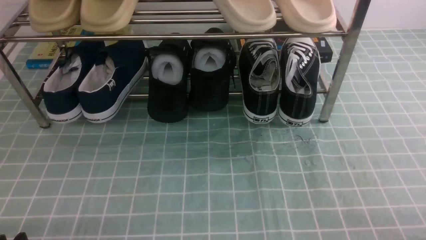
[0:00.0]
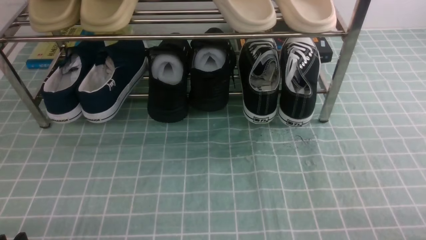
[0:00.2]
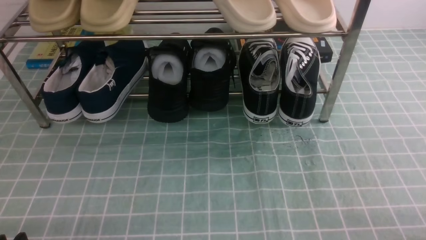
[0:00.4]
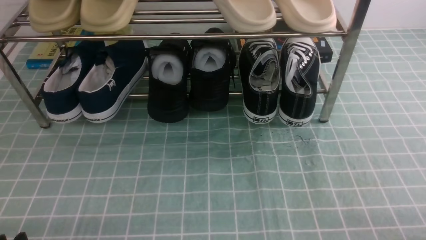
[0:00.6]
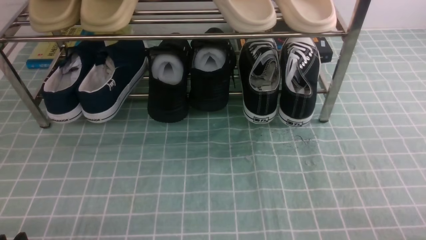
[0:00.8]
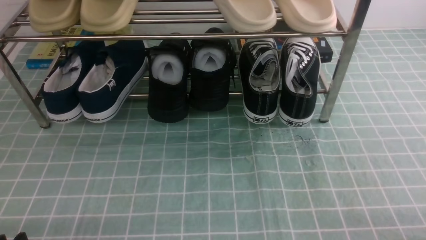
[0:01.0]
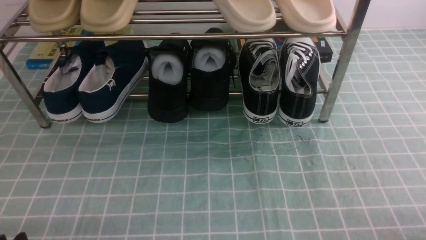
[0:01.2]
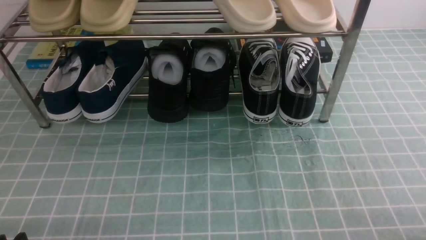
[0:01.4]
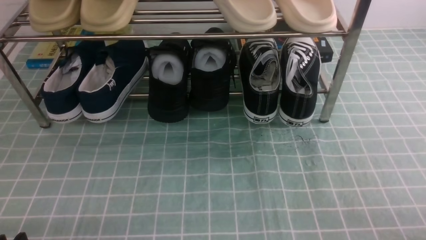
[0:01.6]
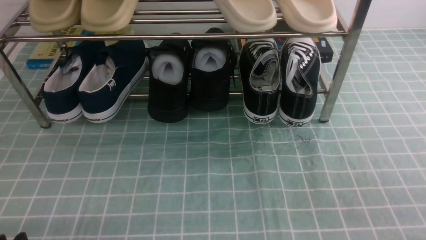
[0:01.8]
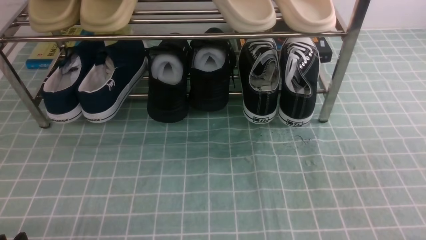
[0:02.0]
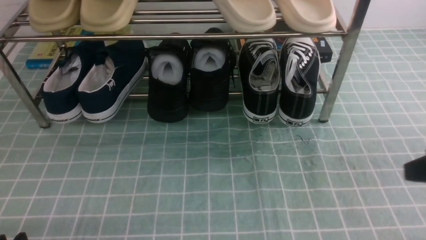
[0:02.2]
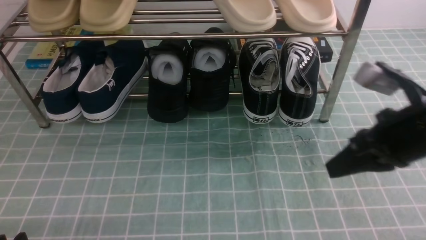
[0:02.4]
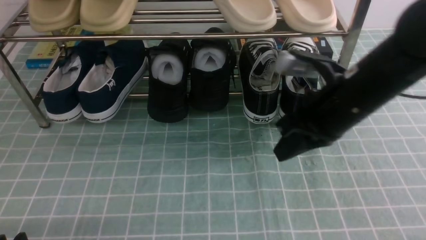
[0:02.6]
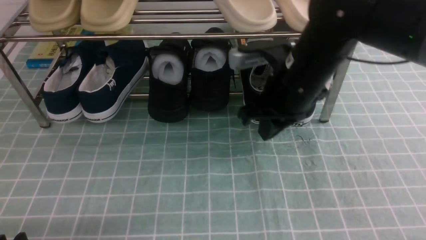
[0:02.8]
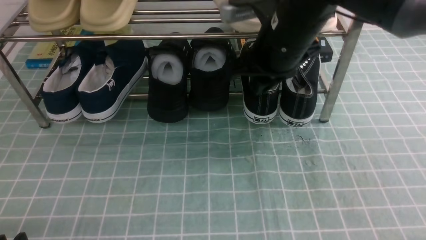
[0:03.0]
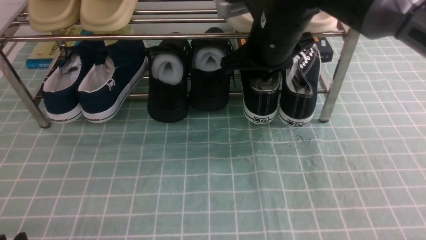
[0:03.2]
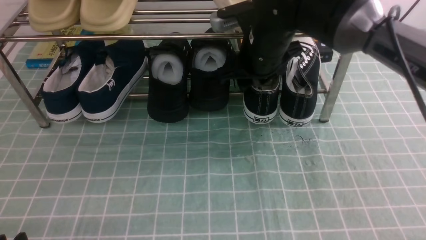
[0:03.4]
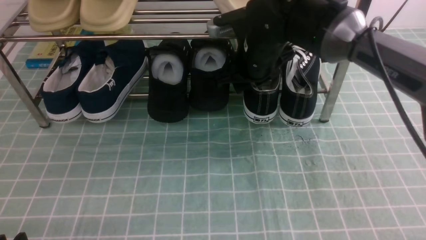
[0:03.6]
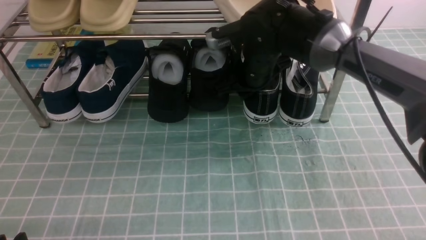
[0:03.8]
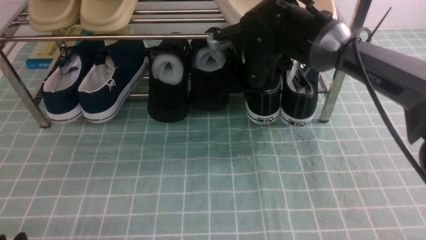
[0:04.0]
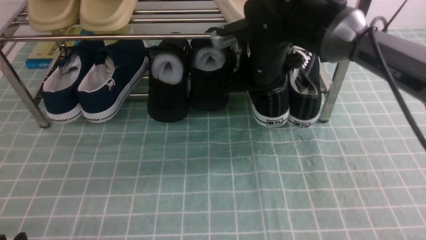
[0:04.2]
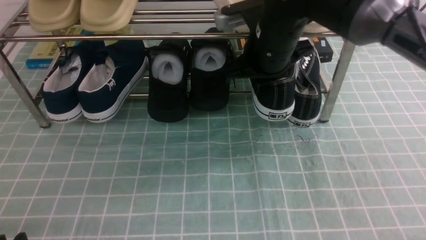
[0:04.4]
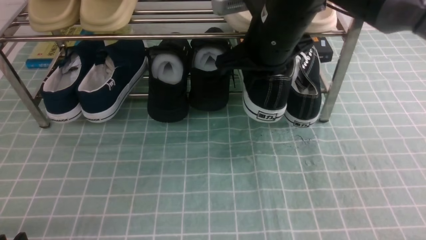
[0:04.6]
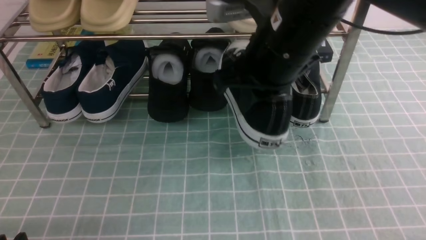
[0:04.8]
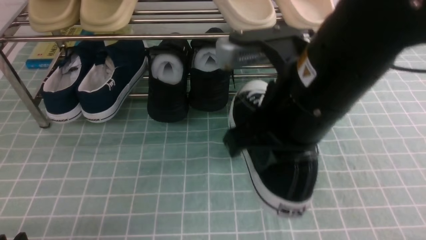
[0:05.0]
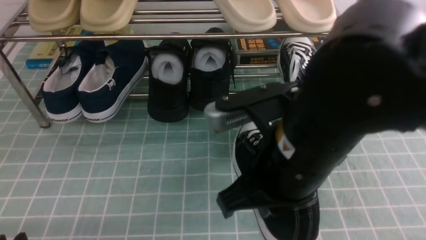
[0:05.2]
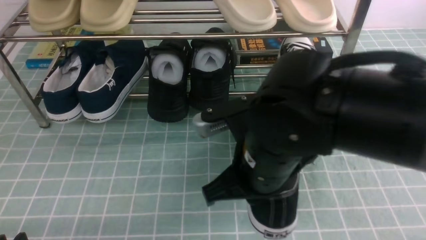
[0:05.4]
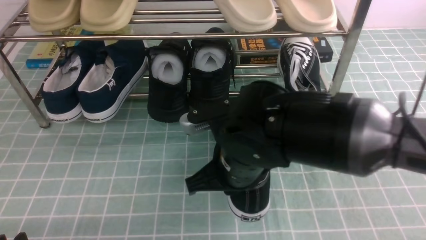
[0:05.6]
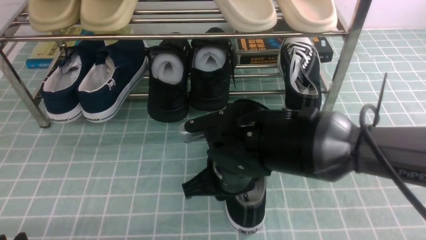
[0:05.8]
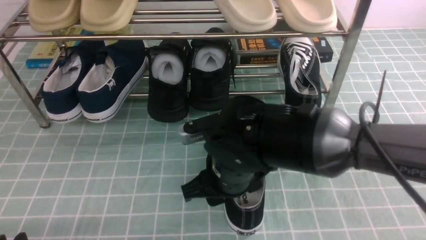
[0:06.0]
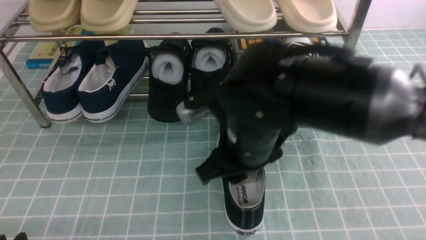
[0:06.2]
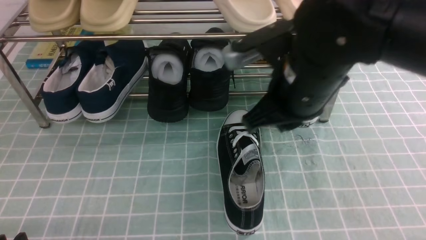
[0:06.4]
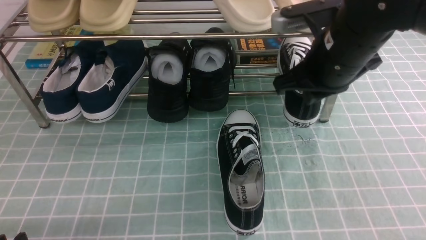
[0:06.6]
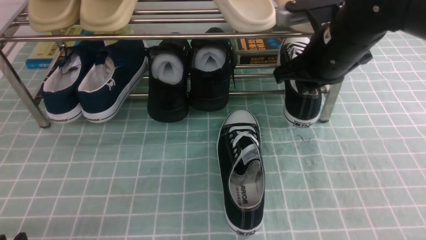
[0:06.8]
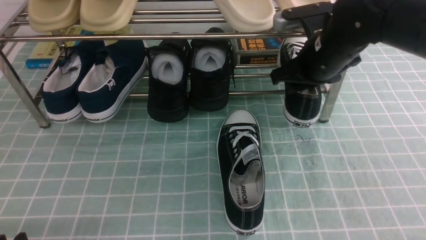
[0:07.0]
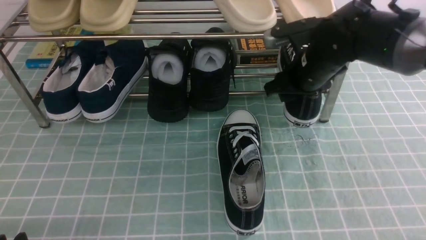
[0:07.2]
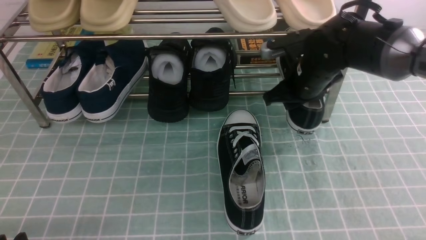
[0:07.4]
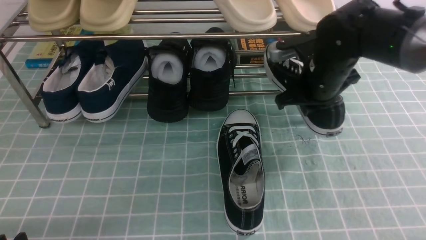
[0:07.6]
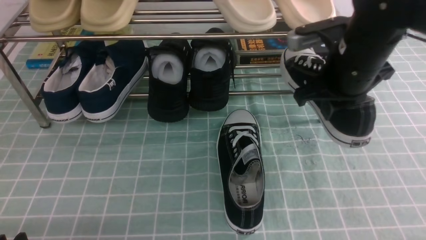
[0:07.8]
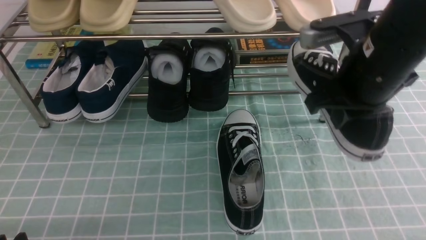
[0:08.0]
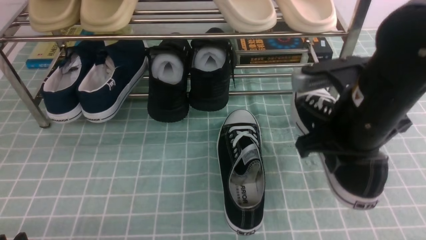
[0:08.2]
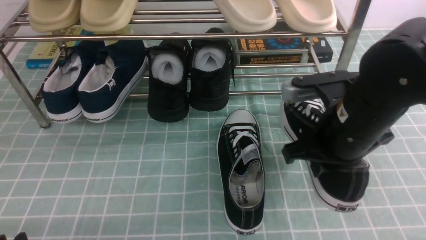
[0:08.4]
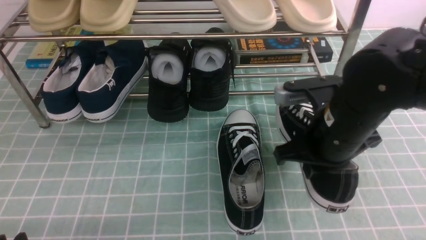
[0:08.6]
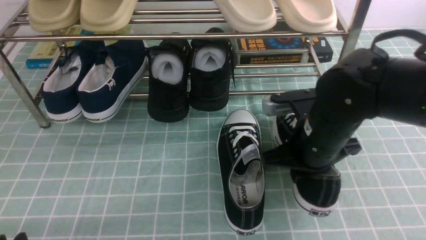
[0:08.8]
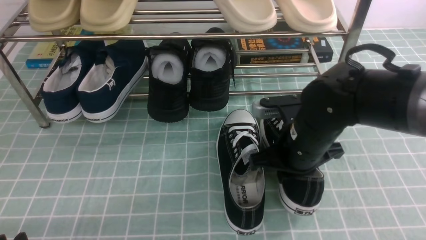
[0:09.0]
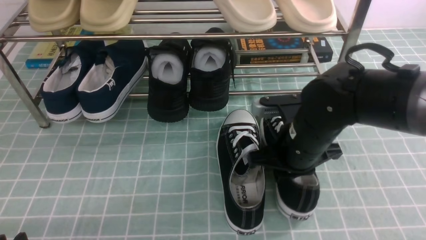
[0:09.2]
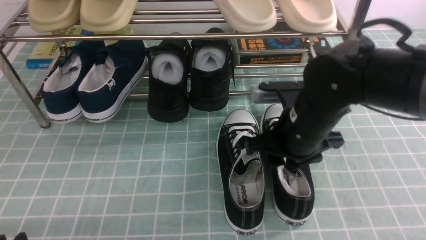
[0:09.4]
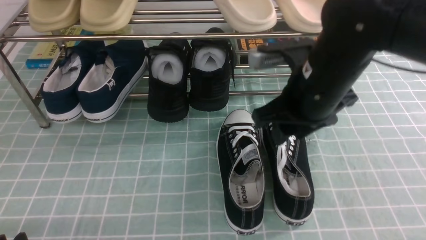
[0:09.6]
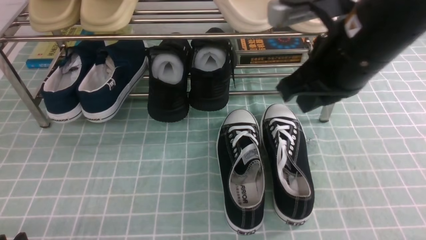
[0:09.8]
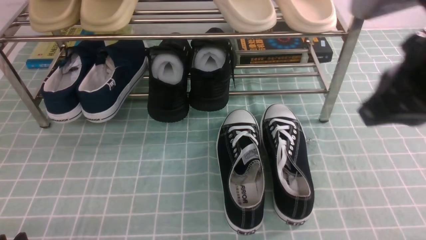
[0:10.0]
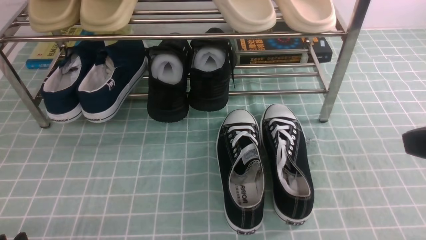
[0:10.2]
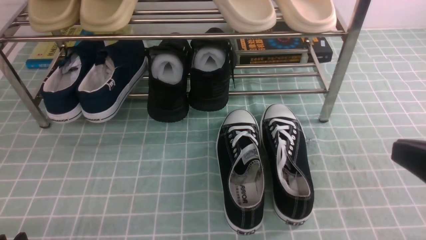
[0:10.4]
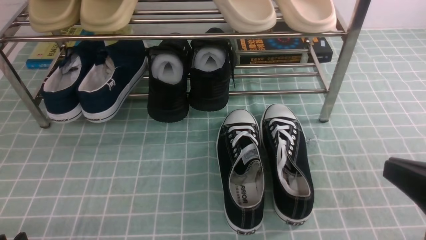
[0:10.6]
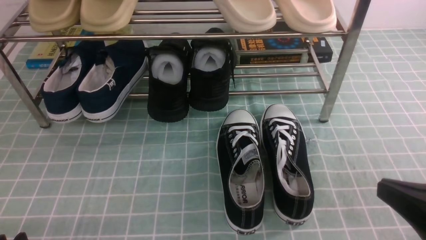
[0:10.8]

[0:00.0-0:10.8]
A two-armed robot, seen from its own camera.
Step, 0:00.0 to 0:03.8: use the right arm to clamp a shoe on the right side of the shoe rack.
Step, 0:04.0 to 0:06.2: use the right arm to take out the clamped shoe from the shoe rack and put it down.
Step, 0:06.4 to 0:07.2: use the right arm to clamp a shoe on the right side of the shoe rack.
Step, 0:07.4 to 0:09.4: use the right arm to take out the clamped shoe from the shoe rack and put it down.
0:01.6 to 0:03.0: The right gripper moves forward, to the left and upward, some 40 cm.
0:03.0 to 0:04.6: The right gripper goes downward and returns, roughly 5 cm each way, and opens and closes again.
0:04.6 to 0:06.2: The right gripper moves backward and downward, approximately 15 cm, and opens up.
0:06.2 to 0:07.8: The right gripper moves to the right and forward, about 15 cm, and closes its fingers.
0:07.8 to 0:09.2: The right gripper shifts roughly 10 cm downward and backward.
0:09.2 to 0:10.8: The right gripper shifts approximately 25 cm backward and to the right, and opens, then closes again.

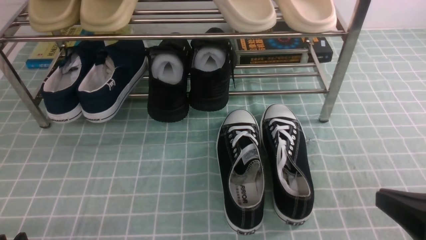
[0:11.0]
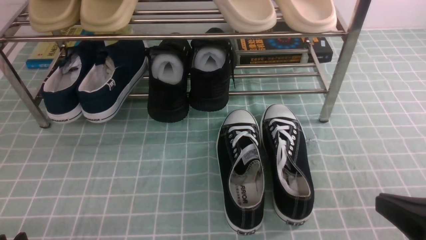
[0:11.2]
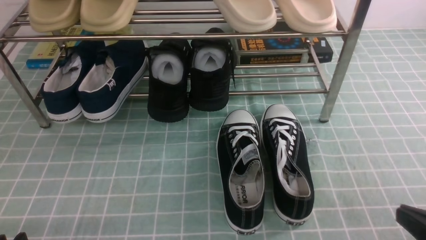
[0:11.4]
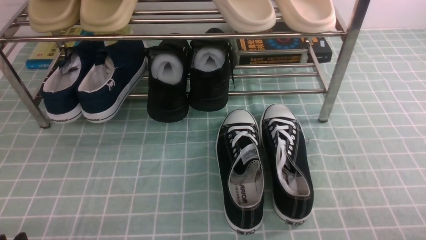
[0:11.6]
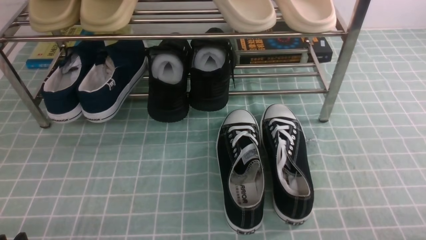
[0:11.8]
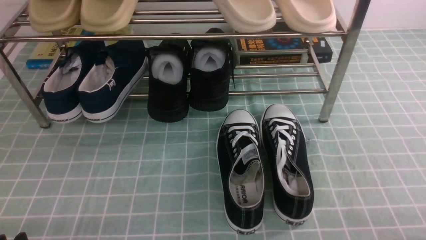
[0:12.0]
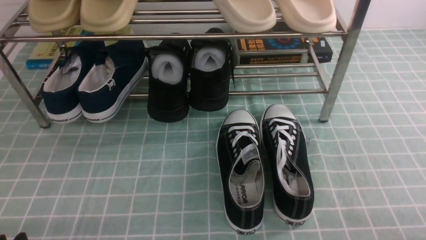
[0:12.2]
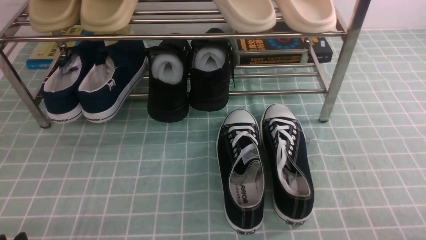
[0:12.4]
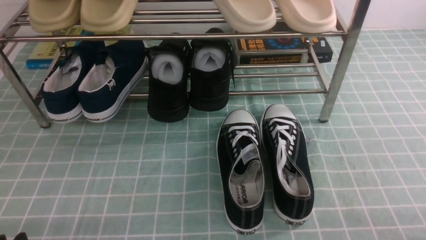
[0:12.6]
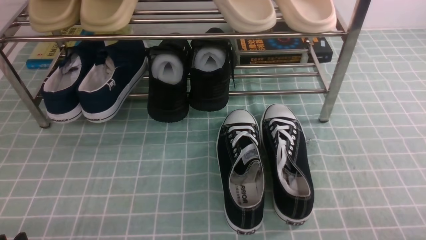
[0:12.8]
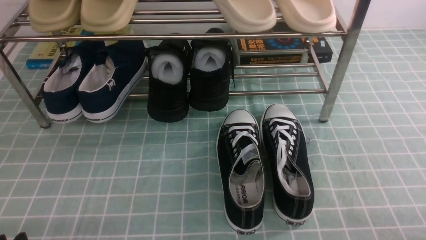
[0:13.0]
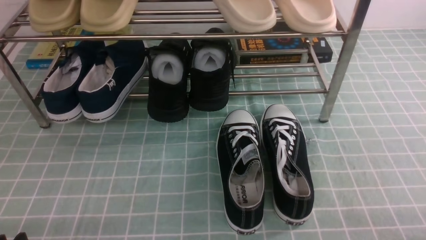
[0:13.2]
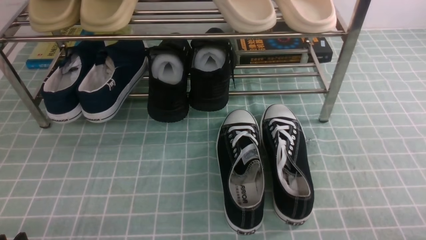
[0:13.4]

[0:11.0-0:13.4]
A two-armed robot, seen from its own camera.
0:11.0 to 0:12.2: The right gripper travels downward and to the right by approximately 10 cm.
0:12.2 to 0:13.4: Both grippers stay about where they are.

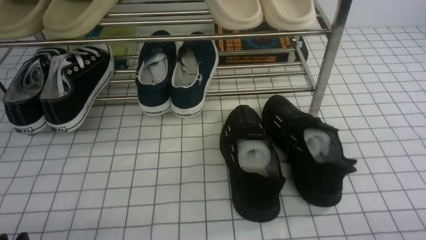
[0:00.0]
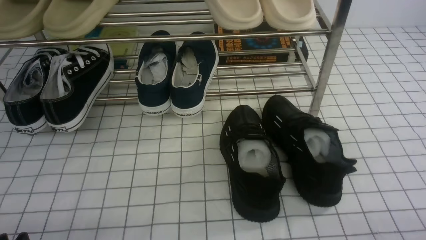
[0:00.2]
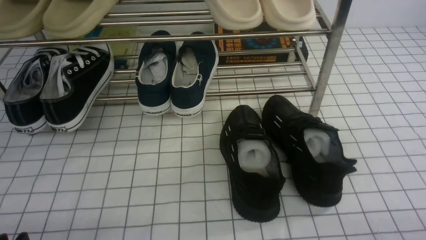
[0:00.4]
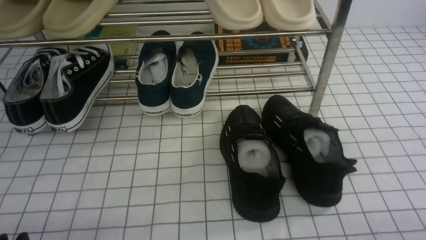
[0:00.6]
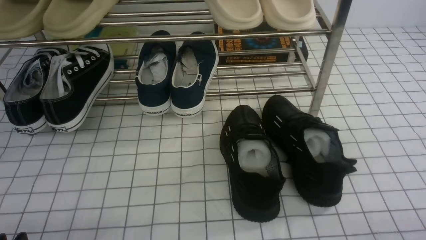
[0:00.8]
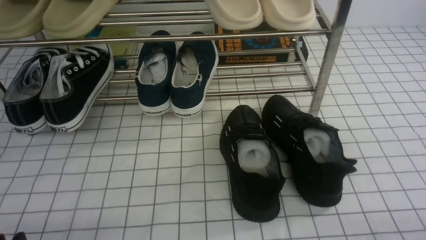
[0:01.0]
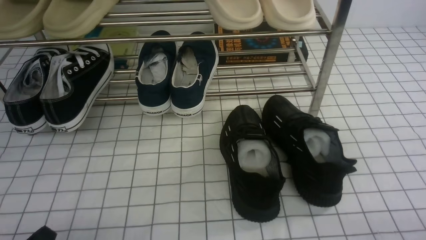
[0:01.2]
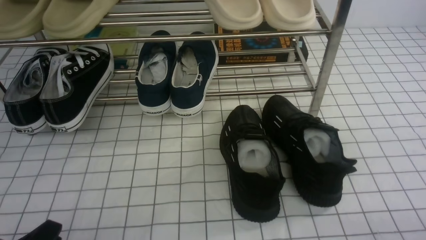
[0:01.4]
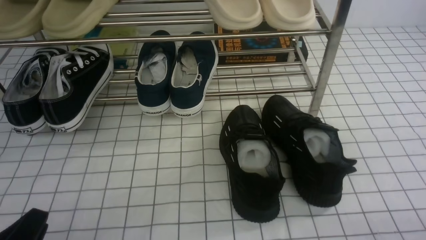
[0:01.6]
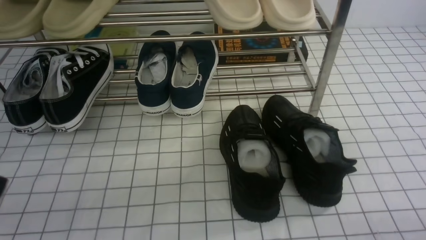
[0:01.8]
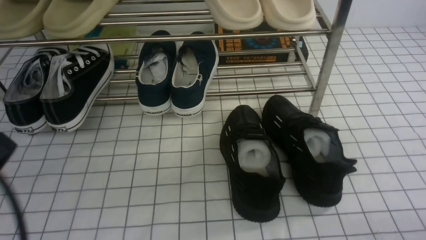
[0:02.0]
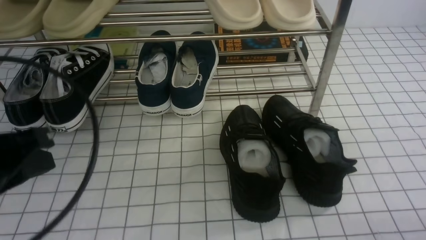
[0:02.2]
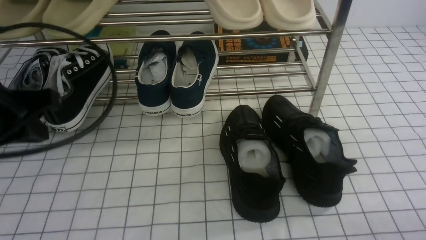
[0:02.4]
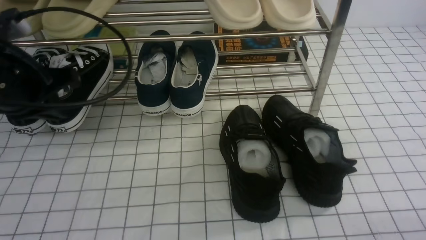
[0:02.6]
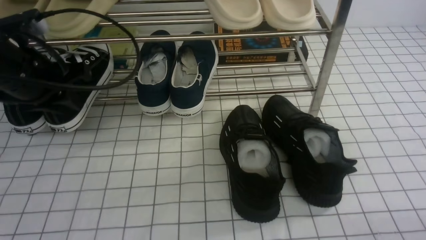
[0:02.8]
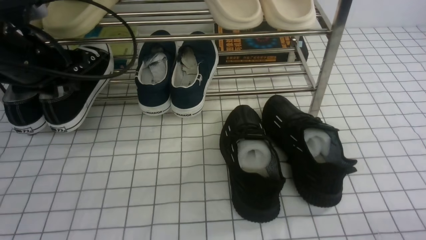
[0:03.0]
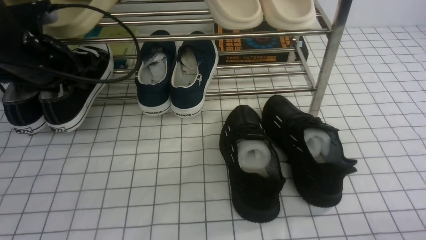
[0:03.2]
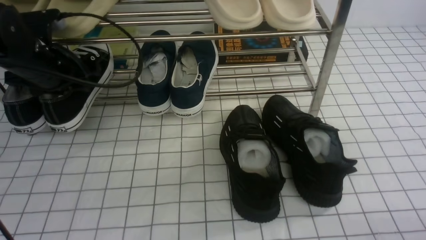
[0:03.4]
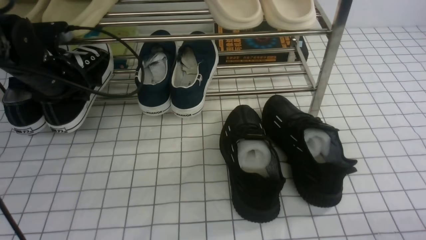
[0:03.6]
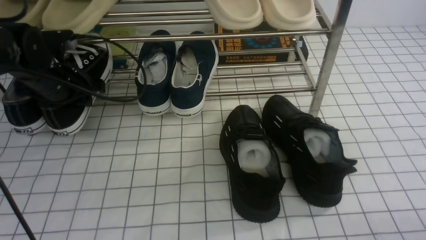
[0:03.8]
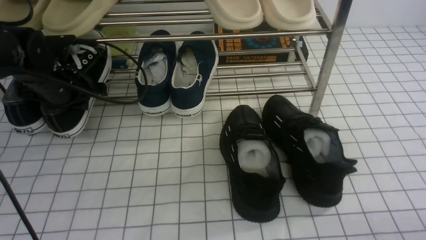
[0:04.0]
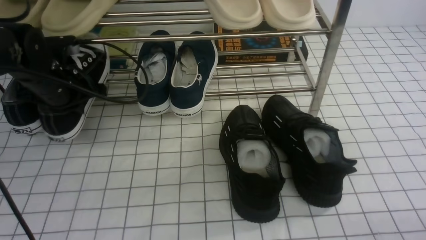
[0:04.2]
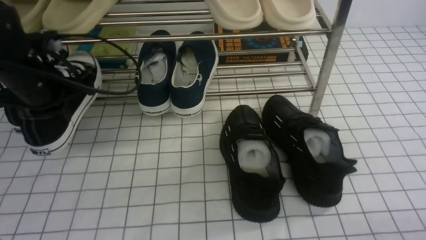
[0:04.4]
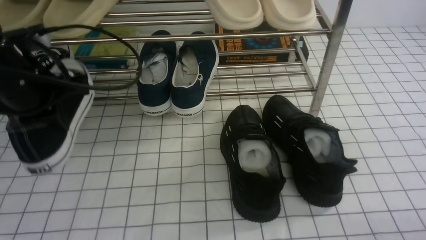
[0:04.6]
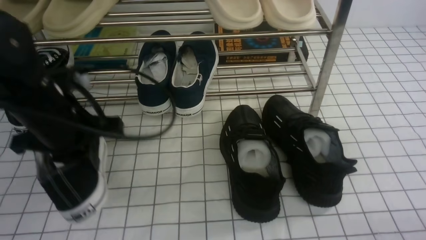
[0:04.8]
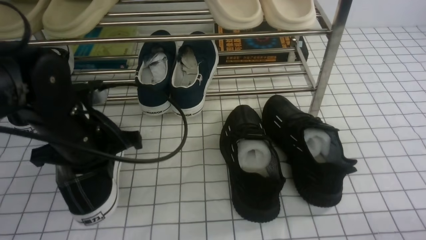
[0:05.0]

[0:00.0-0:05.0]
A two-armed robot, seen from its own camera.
Step, 0:00.0 to 0:04.0: use the left arm to clamp a shoe on the left side of the shoe rack.
0:01.6 to 0:03.4: The left gripper moves forward, approximately 30 cm, and opens.
0:03.4 to 0:05.0: The left gripper travels backward and to the right by some 15 cm, and closes its fingers.
